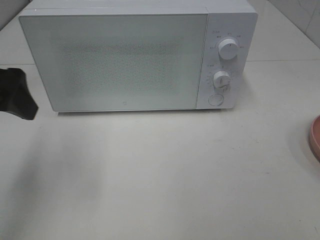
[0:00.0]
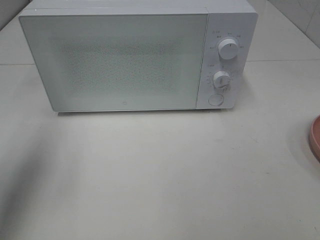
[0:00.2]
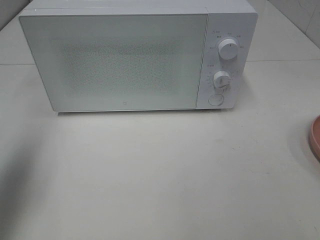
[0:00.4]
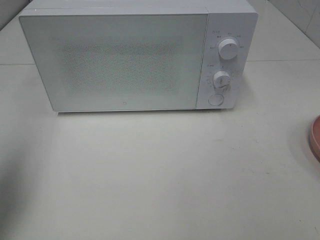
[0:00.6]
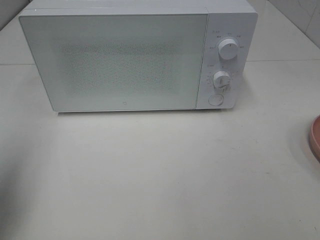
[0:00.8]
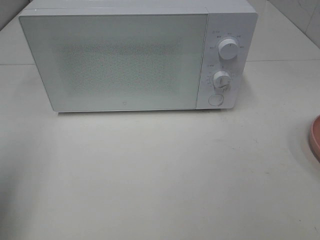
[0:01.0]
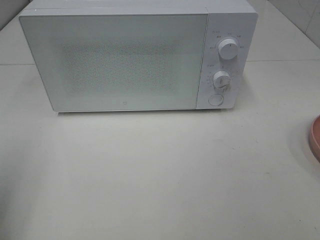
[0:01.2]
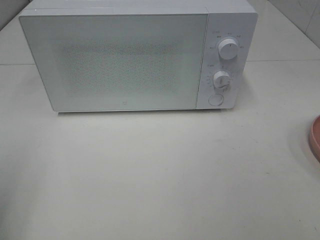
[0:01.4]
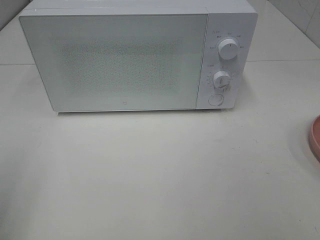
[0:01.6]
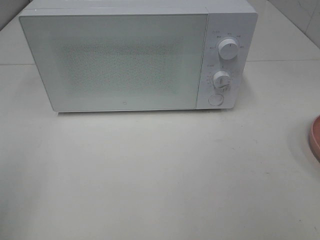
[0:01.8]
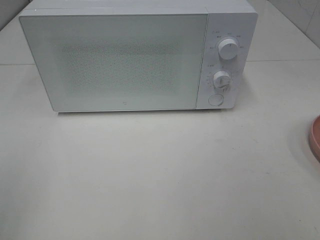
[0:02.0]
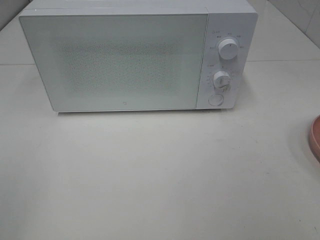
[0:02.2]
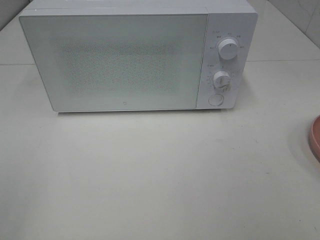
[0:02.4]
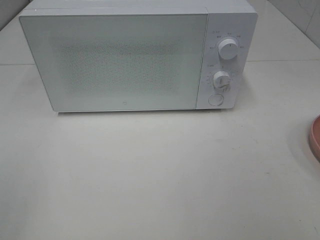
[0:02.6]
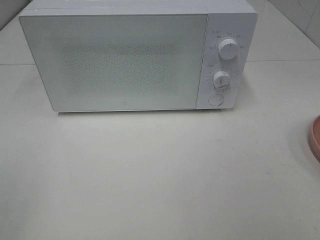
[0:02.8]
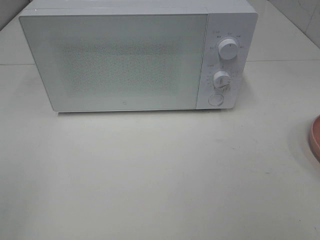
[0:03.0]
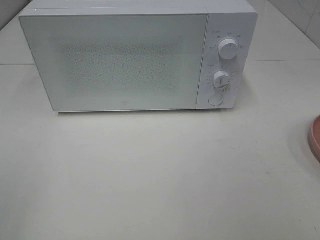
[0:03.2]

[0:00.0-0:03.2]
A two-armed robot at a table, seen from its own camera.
Task of the whole recording: Heat Sandwich.
0.0 to 1.6 s: The left gripper goes some 20 cm backward and to the left.

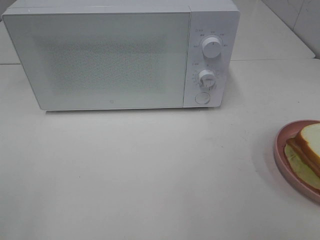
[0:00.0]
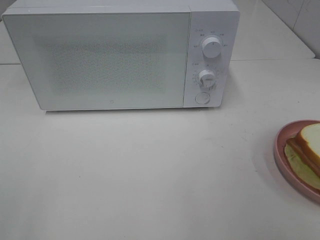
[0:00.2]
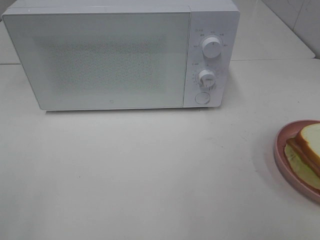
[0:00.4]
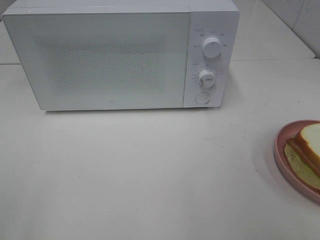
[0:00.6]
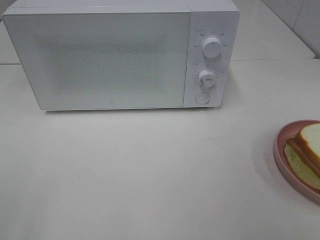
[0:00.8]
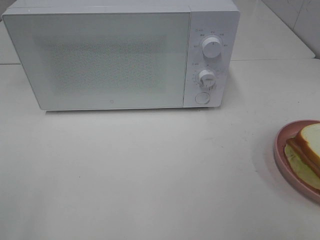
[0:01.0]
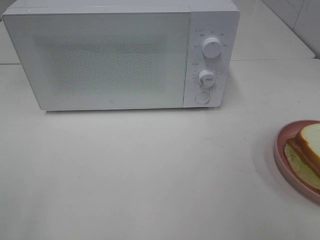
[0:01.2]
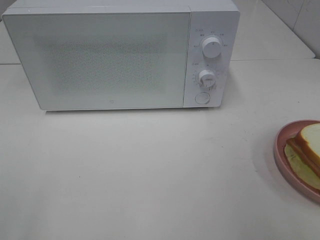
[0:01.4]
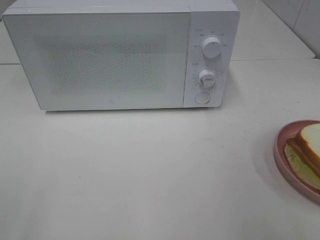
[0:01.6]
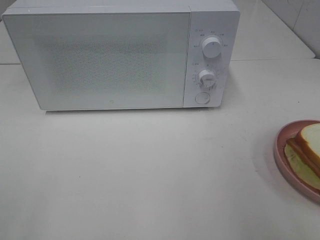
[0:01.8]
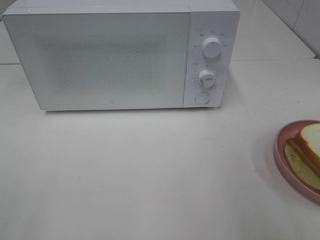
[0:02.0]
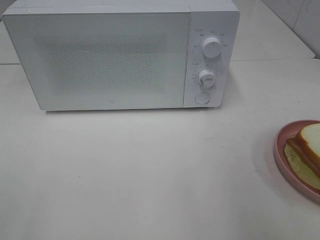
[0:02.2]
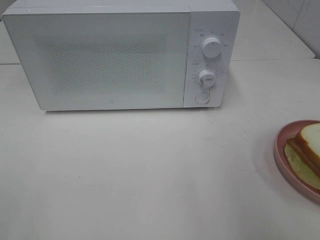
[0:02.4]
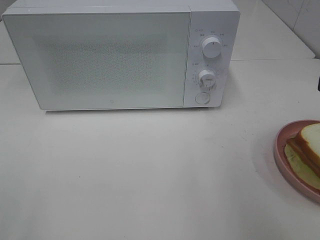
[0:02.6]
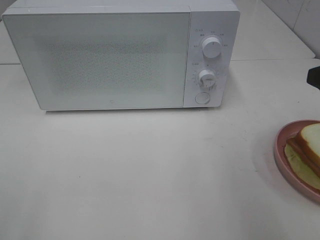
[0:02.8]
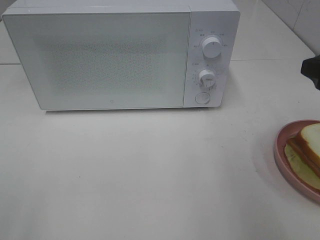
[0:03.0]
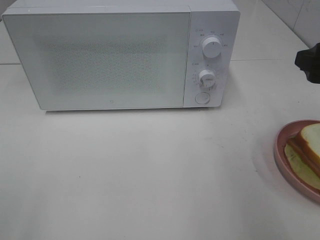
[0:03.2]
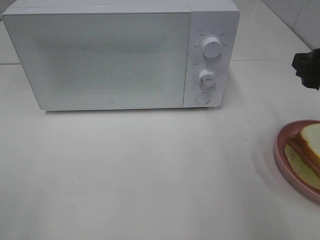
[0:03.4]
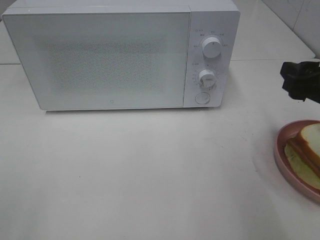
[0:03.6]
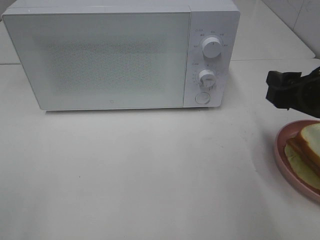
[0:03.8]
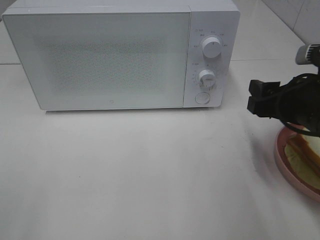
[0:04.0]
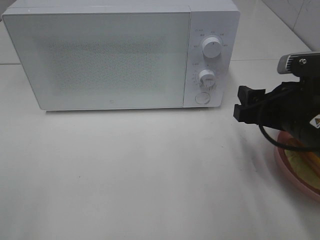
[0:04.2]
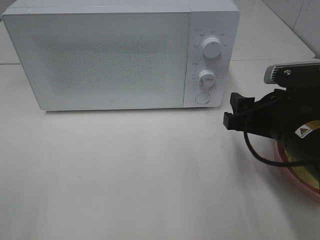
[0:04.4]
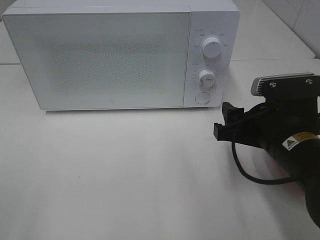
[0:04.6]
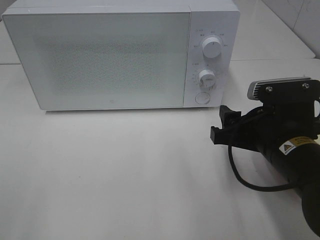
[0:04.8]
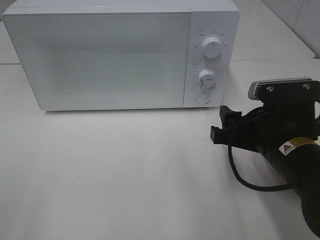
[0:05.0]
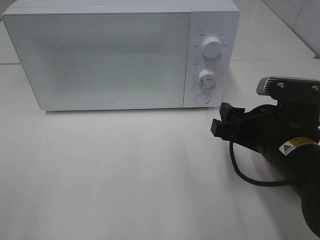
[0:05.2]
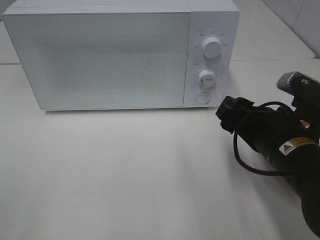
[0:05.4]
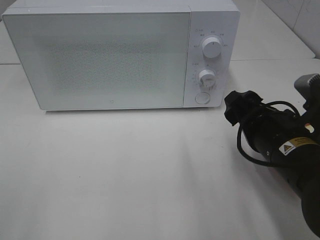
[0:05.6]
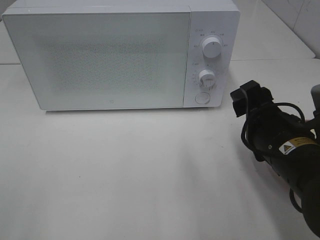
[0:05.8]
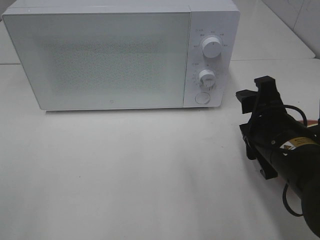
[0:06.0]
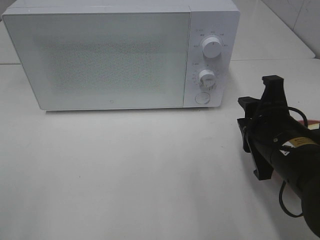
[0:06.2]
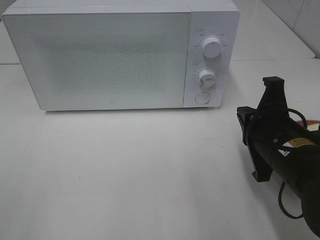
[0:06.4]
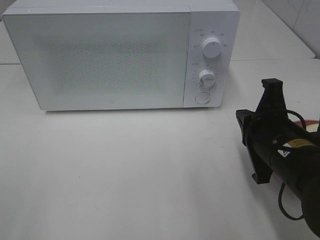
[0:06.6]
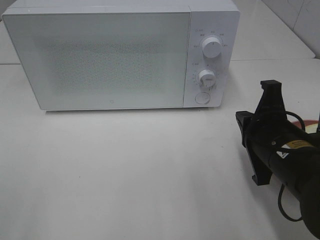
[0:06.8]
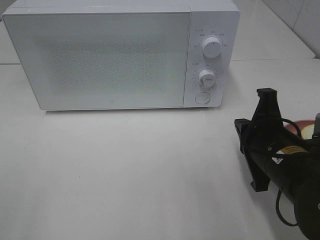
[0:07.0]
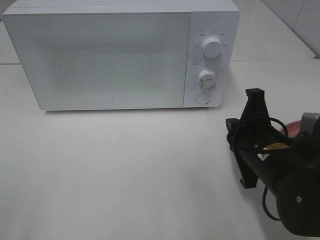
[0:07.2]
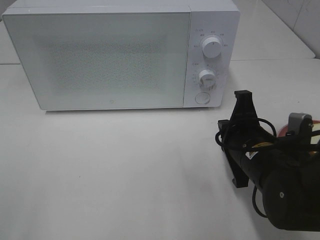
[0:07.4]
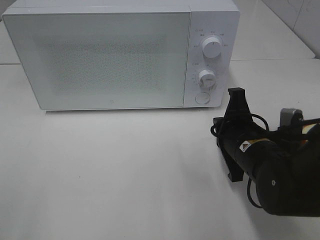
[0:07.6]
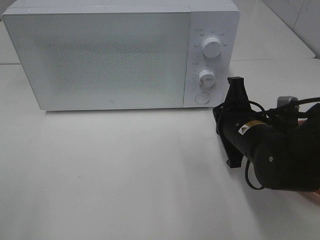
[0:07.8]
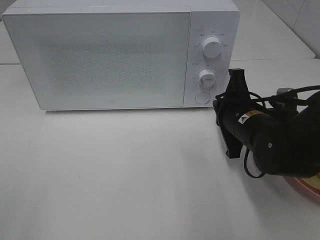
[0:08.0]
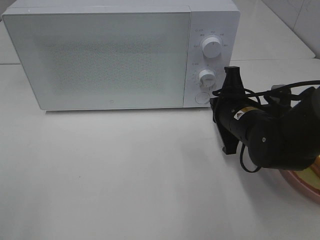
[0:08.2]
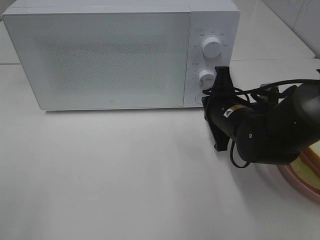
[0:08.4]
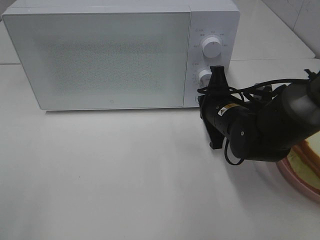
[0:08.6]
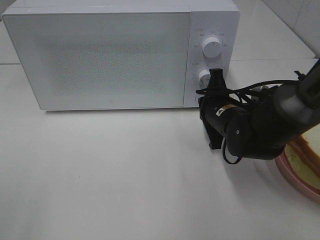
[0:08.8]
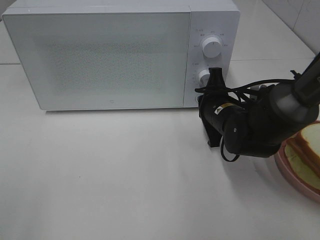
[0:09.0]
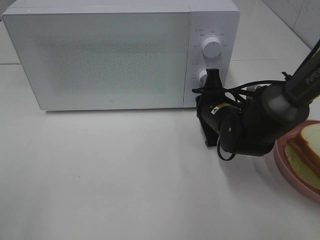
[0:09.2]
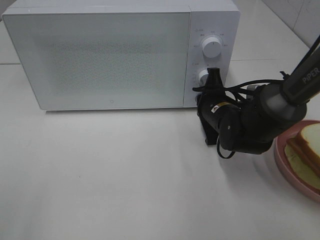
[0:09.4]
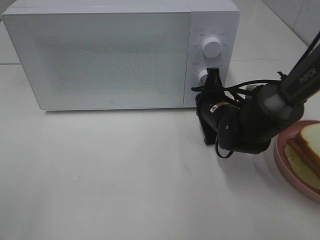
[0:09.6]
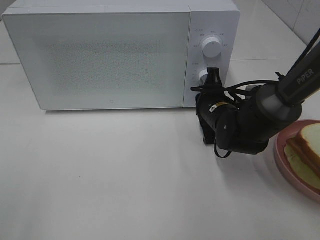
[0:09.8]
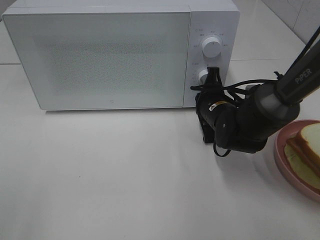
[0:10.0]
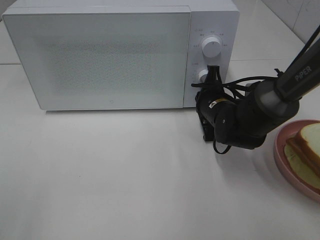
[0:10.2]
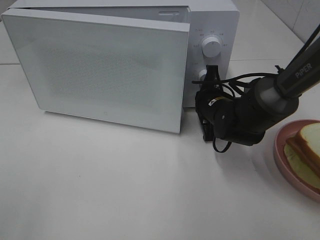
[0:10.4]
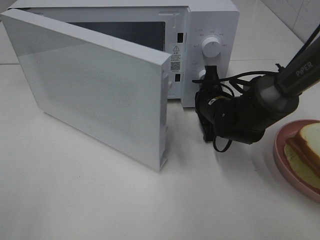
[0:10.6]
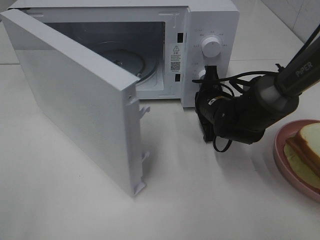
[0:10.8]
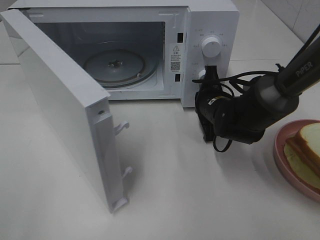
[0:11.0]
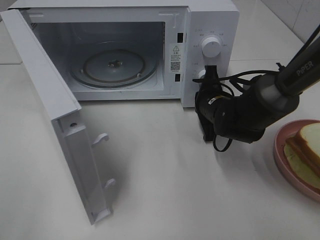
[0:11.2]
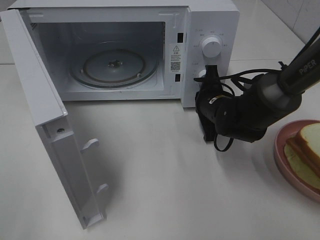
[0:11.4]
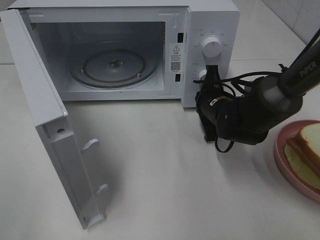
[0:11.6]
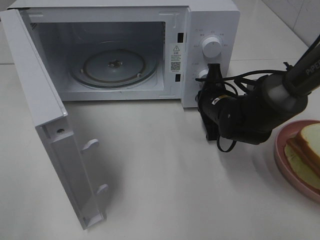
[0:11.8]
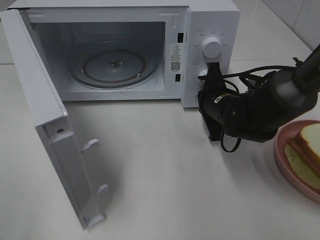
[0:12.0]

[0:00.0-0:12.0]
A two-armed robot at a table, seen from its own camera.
Task of the whole recording: Heat Sandwich.
1.6 to 3.0 s: The right gripper heads forward, covering roughly 15 cm.
3.0 to 4.4 s: The right gripper shifts approximately 15 cm downward and to the left.
6.0 to 7.6 s: The right gripper shifts by some 5 cm, and closes.
7.6 to 9.0 s: The right gripper travels forward by about 10 cm.
9.0 to 10.4 s: The grippers make only small movements.

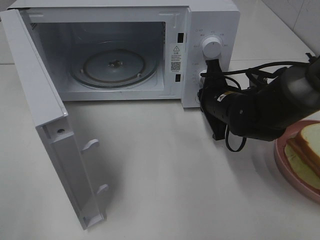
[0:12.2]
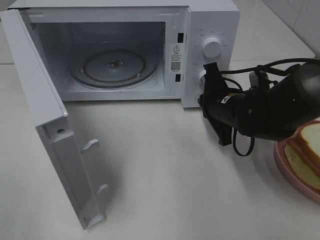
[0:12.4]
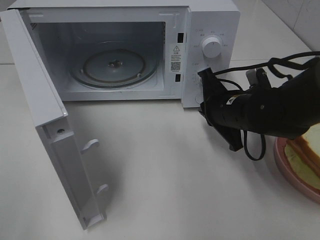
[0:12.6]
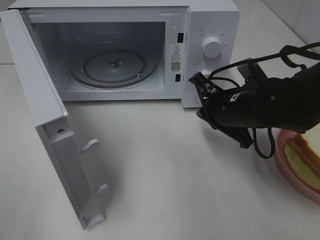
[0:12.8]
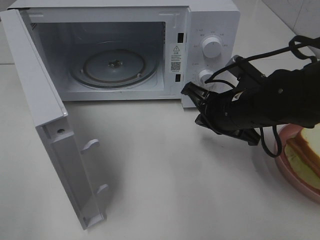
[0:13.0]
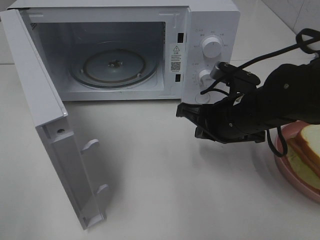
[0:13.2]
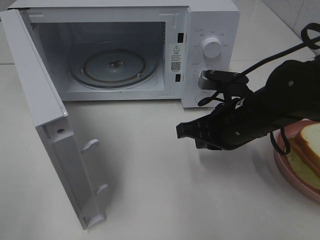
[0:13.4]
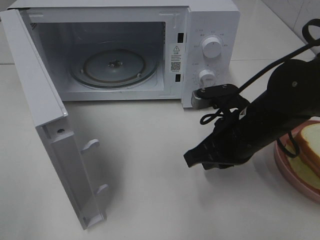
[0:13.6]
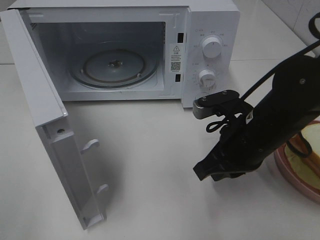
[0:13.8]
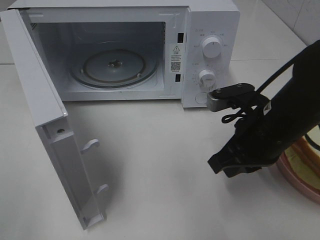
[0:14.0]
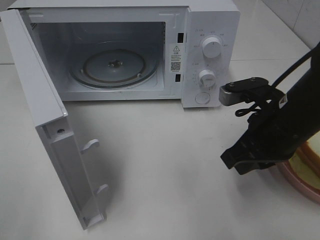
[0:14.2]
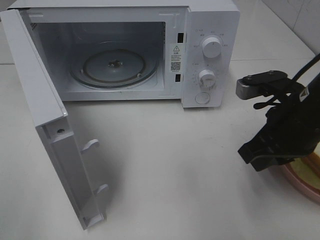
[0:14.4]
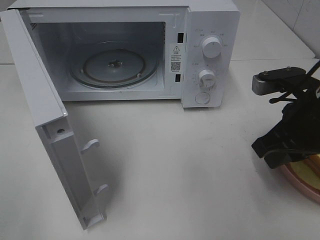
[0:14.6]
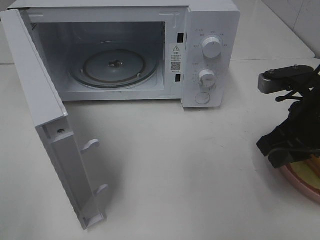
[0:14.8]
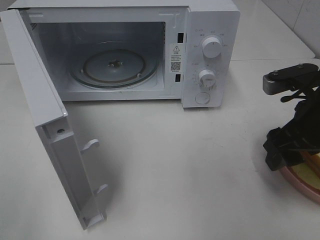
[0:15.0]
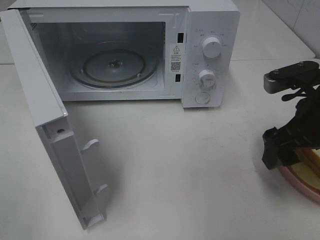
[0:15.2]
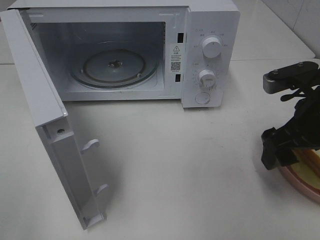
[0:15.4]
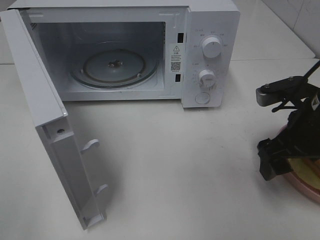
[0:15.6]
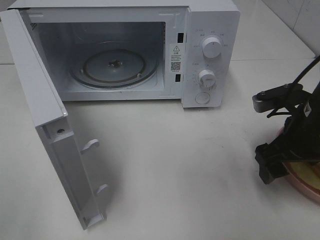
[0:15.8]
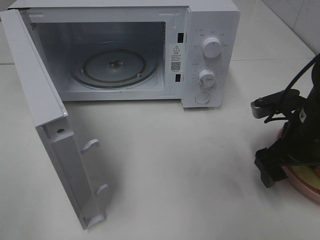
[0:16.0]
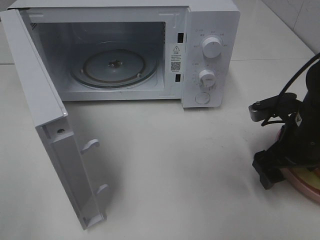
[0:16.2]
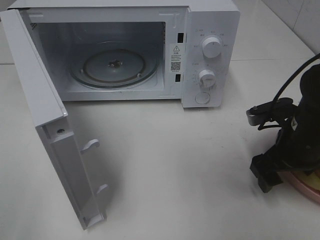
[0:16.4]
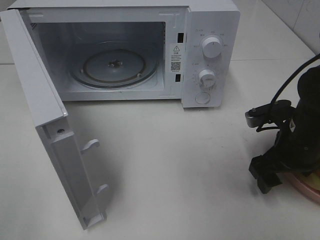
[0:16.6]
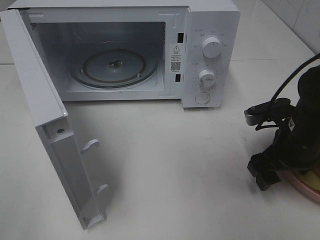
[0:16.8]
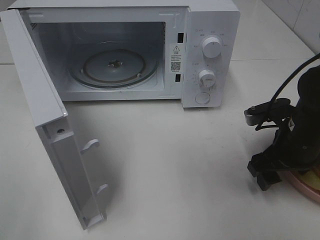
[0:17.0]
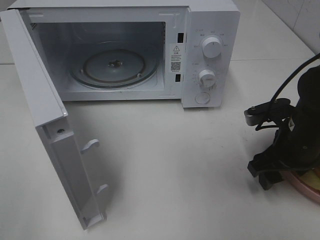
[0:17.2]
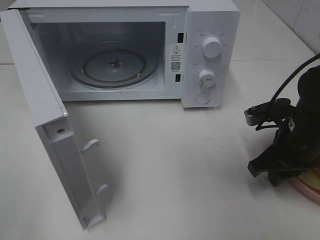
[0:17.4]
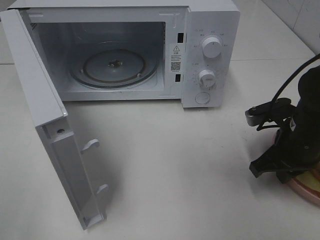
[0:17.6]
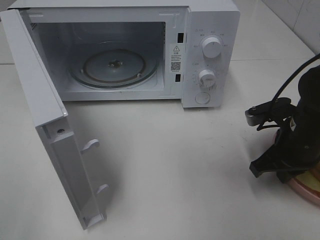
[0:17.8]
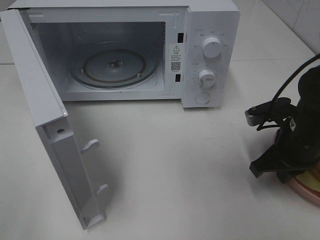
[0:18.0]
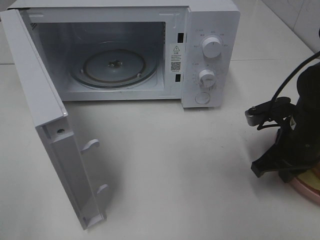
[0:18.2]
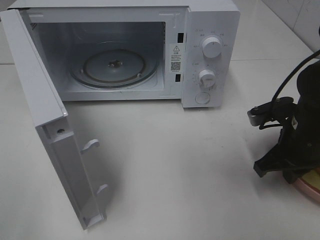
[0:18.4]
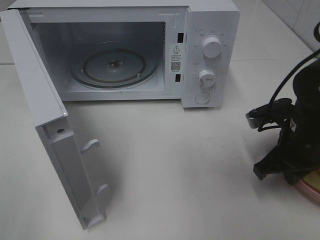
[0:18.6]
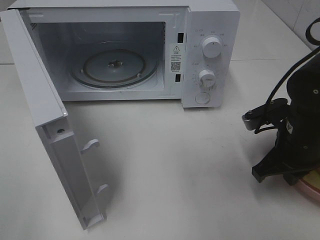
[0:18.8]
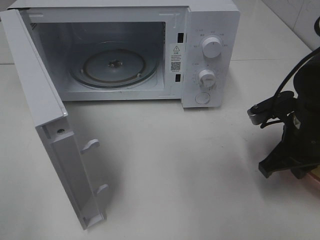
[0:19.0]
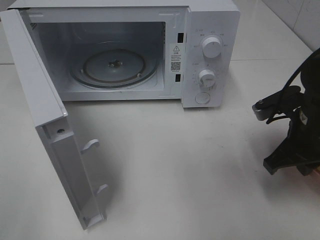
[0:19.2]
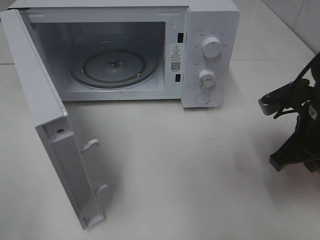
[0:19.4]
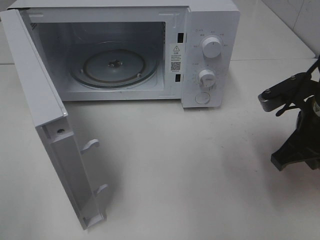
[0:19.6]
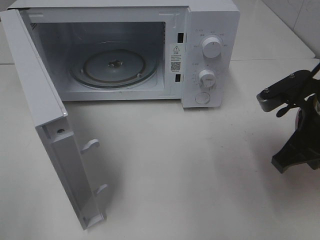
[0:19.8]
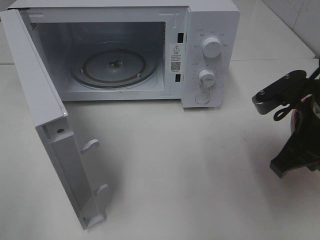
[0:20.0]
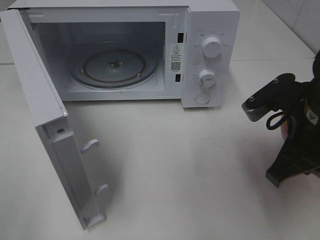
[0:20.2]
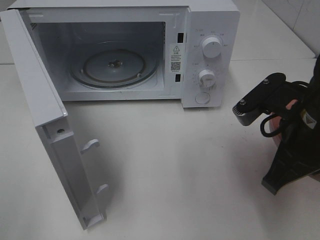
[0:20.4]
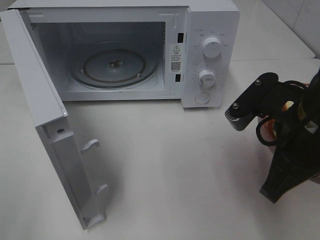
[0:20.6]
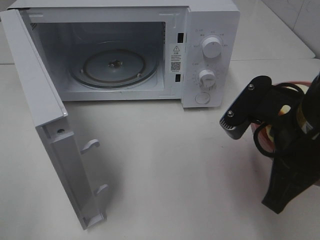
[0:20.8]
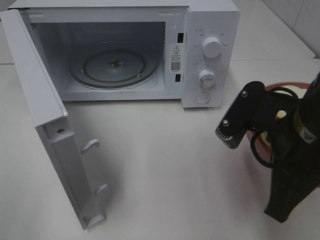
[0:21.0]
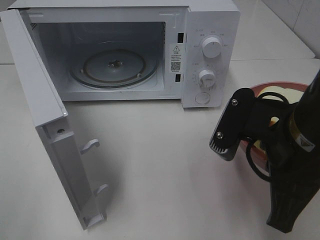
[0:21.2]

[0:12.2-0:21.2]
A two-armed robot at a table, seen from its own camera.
Task of the whole recording: Heat Sandwich.
Step, 12.4 to 18.0 s: Right hand: grab the plate with the sandwich.
12.2 to 13.8 s: The right gripper is displaced backward by about 10 cm.
13.8 to 15.2 s: The right gripper heads to the right and upward, covering some 10 cm, and opens its fingers.
15.2 to 16.6 s: The right gripper shifts approximately 10 cm downward.
16.6 to 18.2 s: The right gripper closes up.
18.2 to 19.8 s: The right gripper goes roughly 5 cm upward.
19.8 to 21.2 s: The right gripper heads to the left and backward, covering approximately 10 cm.
